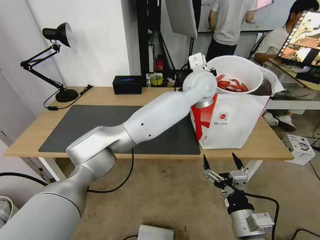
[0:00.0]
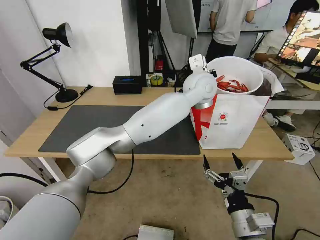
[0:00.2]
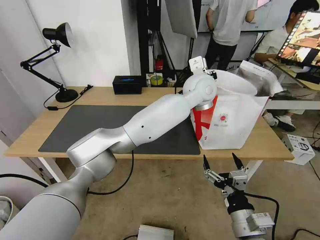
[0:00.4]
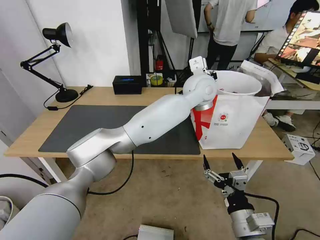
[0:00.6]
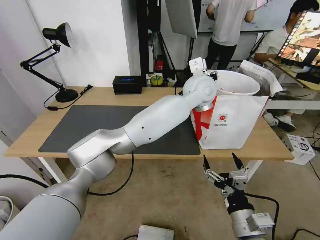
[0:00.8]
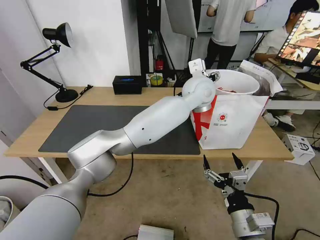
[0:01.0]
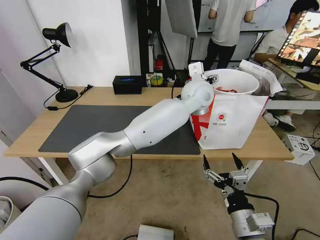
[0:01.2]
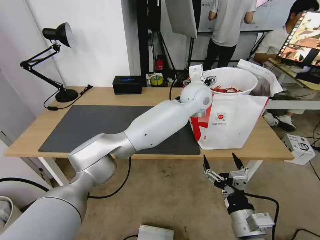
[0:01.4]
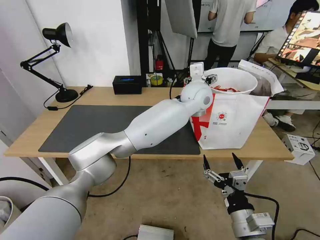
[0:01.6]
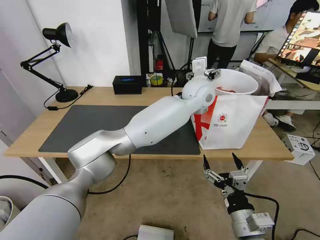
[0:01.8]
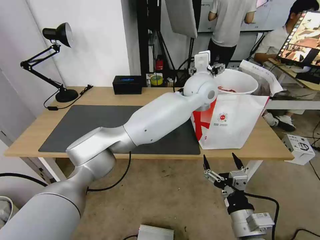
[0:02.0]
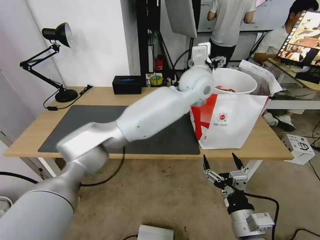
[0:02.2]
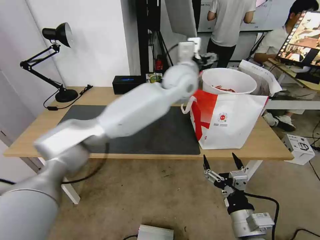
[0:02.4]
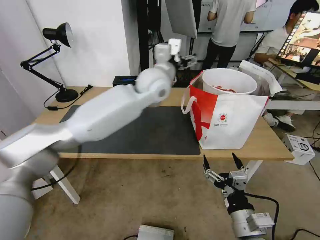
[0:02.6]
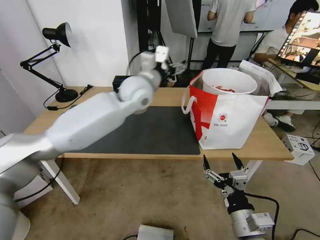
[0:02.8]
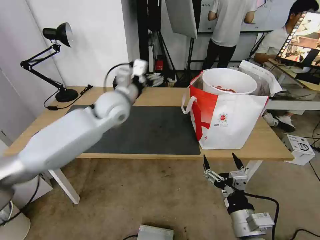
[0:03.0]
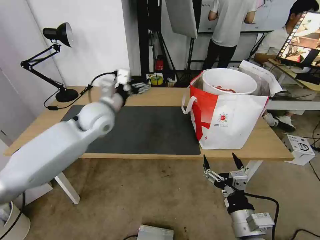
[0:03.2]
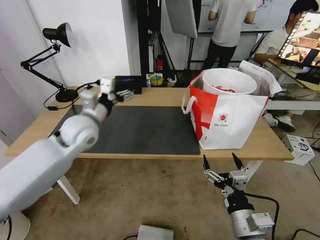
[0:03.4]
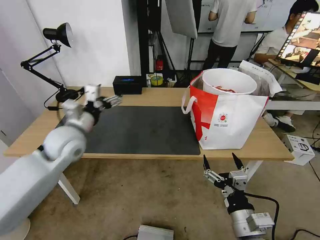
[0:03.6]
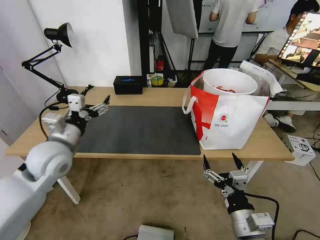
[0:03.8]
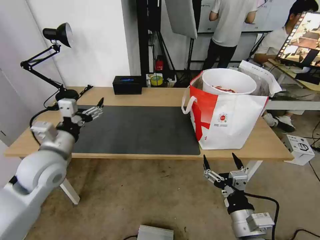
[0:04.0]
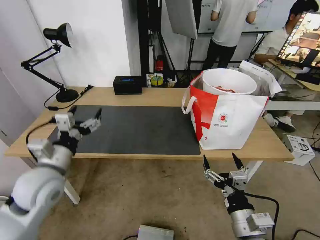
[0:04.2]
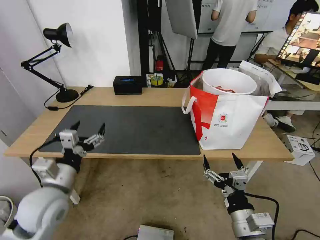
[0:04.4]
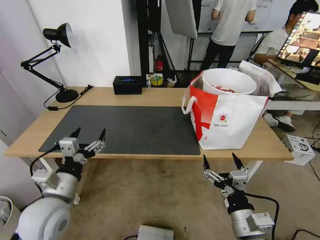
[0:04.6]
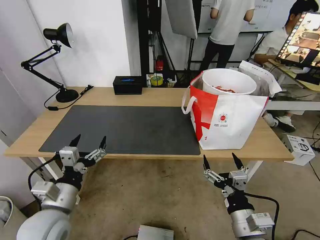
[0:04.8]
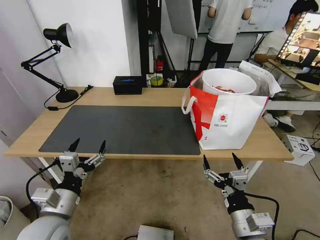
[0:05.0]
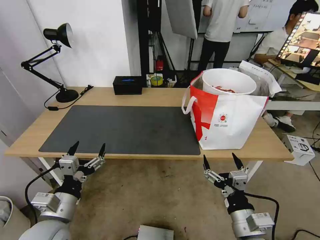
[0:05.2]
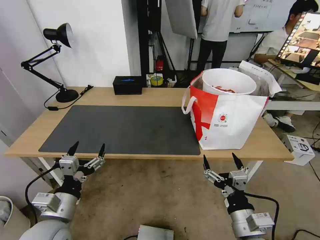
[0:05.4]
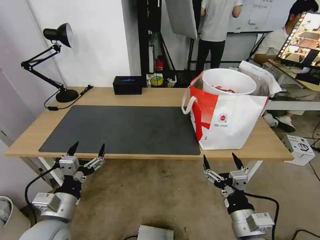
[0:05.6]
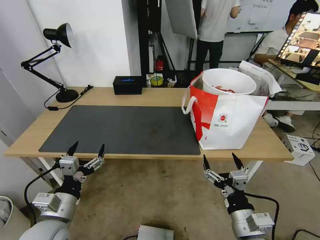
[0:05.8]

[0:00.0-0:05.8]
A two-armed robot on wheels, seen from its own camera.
Task of the whole recording: Pick up the trash from the table and place it into the takeout bag.
0:00.0 to 0:01.4: The left gripper opens up.
0:01.4 to 0:02.8: The left gripper goes approximately 20 cm to the left.
0:02.8 to 0:04.4: The left gripper heads backward, to the left and downward, covering about 35 cm.
0:04.4 to 0:05.8: The left gripper shifts some 5 cm backward.

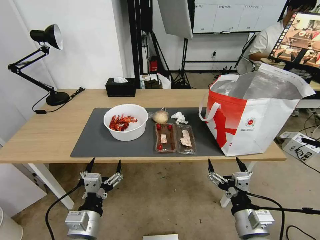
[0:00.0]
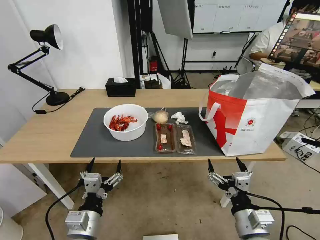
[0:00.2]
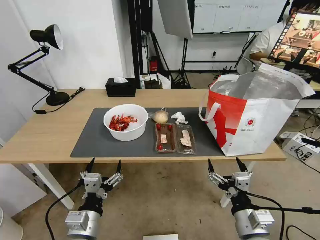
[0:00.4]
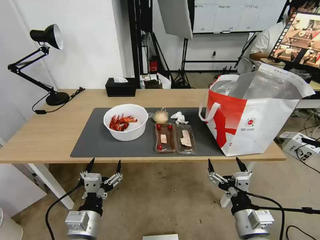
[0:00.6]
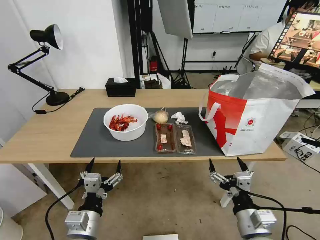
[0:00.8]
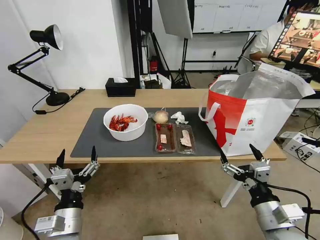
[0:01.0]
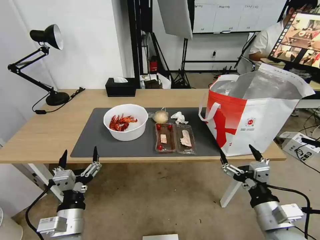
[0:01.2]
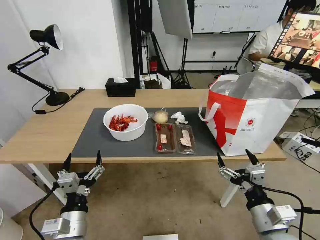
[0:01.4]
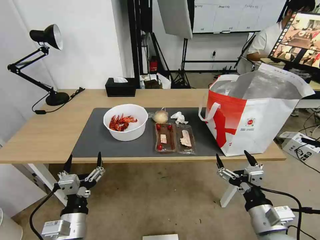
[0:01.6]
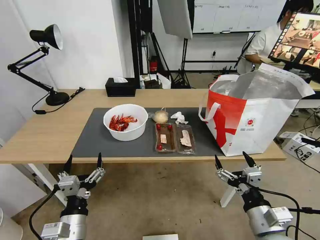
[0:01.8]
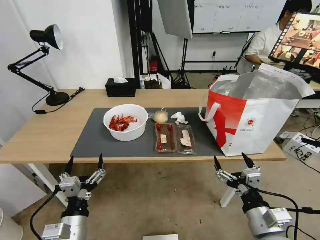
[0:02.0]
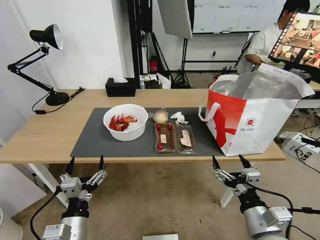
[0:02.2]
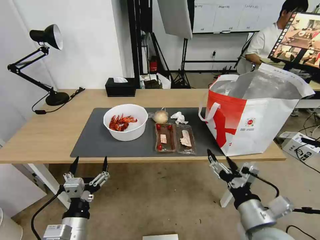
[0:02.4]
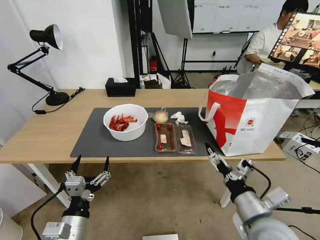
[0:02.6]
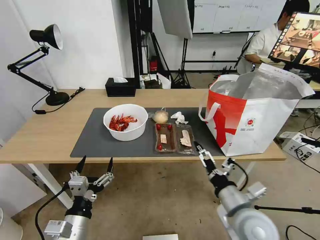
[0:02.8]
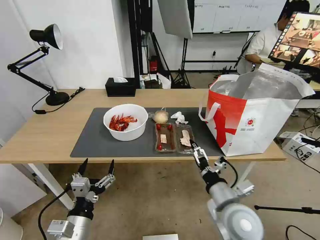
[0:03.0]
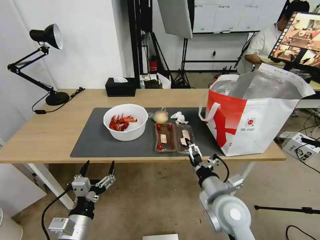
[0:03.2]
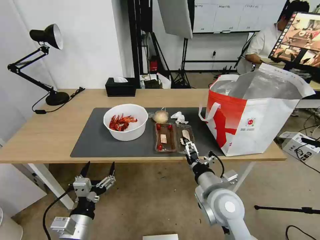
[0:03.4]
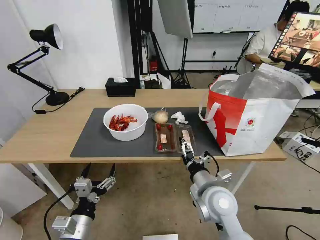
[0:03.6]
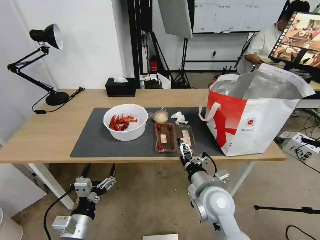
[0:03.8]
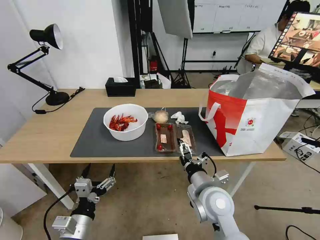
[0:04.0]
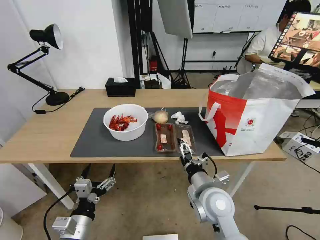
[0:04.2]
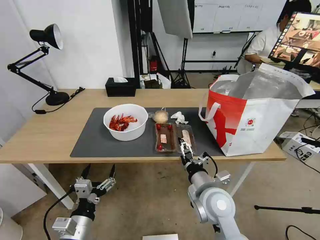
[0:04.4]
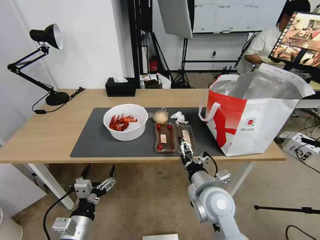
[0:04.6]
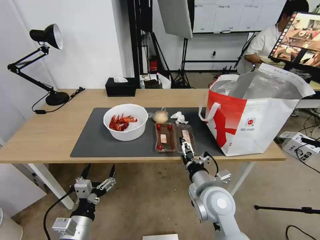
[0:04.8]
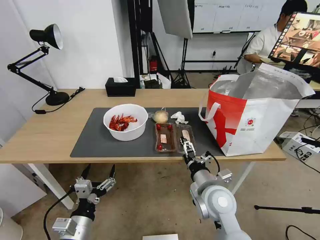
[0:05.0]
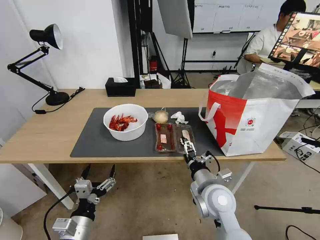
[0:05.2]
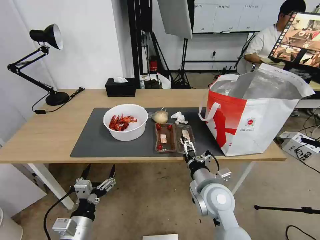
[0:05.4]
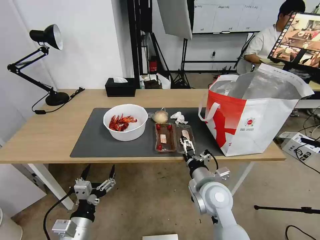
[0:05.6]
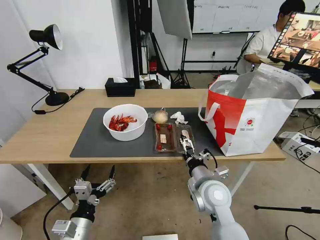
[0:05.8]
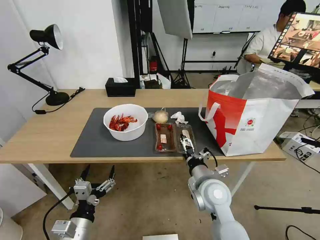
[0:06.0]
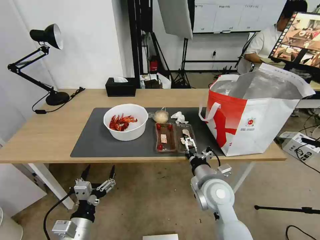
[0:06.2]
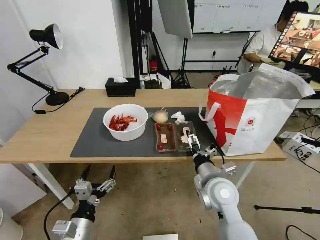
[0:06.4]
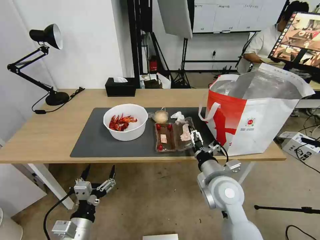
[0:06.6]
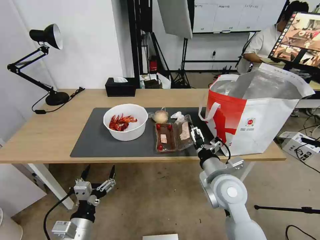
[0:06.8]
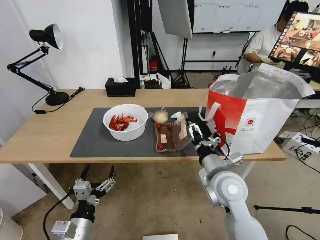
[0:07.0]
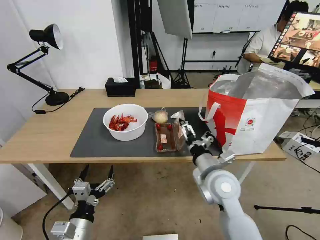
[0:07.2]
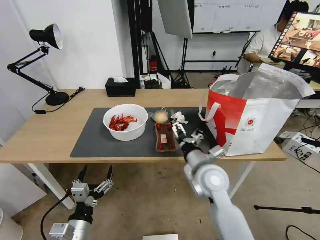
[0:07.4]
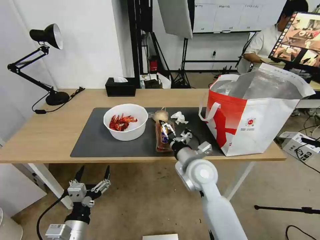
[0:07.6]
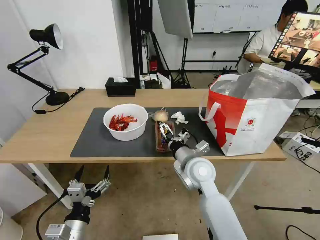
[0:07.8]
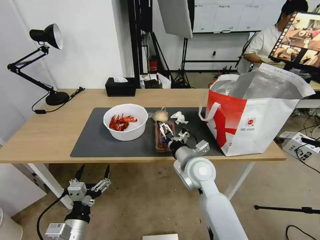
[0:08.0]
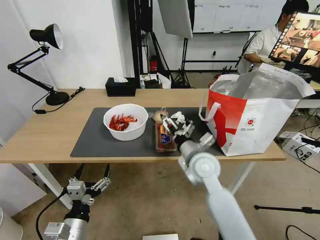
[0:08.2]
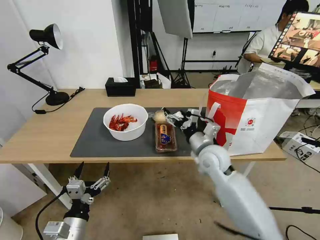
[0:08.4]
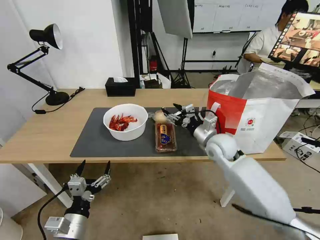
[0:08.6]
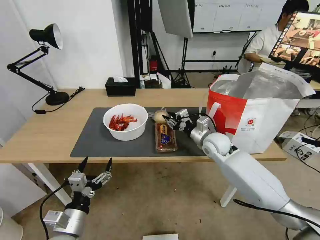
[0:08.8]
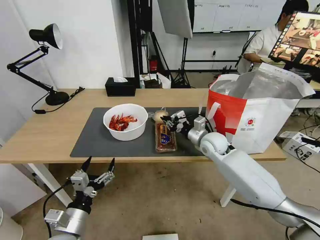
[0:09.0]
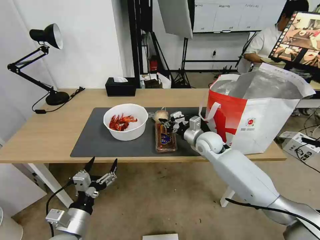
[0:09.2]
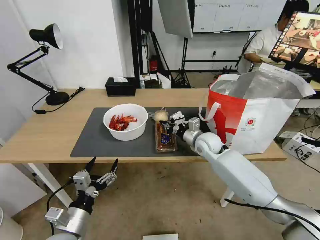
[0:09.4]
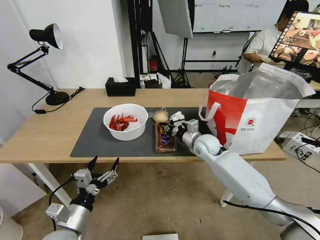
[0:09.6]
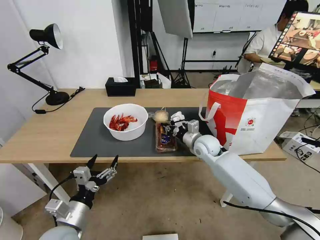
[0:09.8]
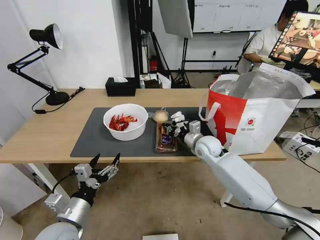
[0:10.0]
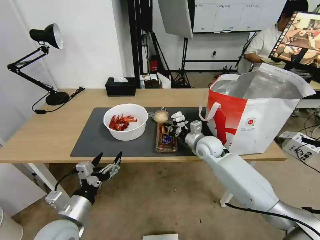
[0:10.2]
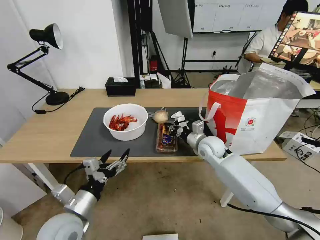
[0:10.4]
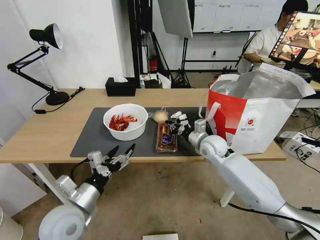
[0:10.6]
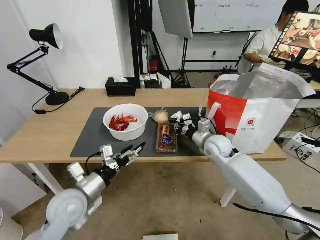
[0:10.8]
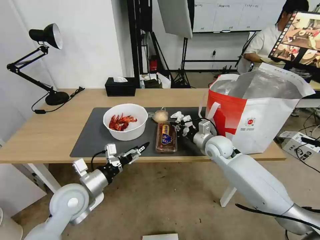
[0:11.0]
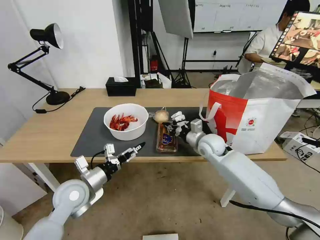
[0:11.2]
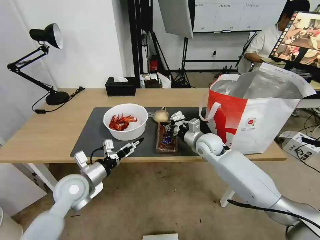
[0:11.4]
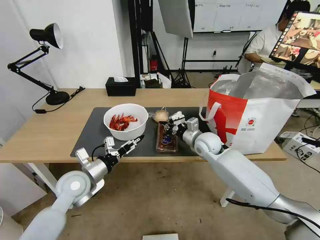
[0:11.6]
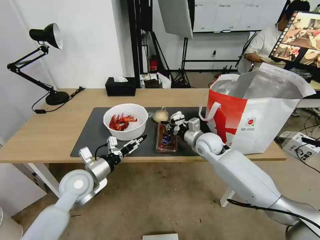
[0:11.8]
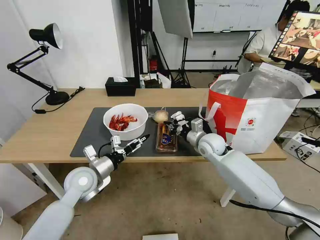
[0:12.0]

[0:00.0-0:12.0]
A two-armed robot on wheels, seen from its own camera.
Task of the whole recording: Pick up the trash from the table and place it into the takeout bag.
0:01.6 to 0:03.0: The right gripper heads to the left and forward, covering approximately 10 cm.
0:03.0 to 0:04.4: The right gripper ends up roughly 5 cm from where it was.
0:04.4 to 0:06.0: There are only small adjustments of the grippers.
0:06.0 to 0:07.6: The right gripper is displaced forward by approximately 5 cm.
0:07.6 to 0:09.0: The right gripper travels forward and to the right by approximately 15 cm, and closes its fingers.
0:09.0 to 0:10.4: The left gripper shifts by about 5 cm.
0:10.4 to 0:12.0: The left gripper moves forward, about 15 cm.

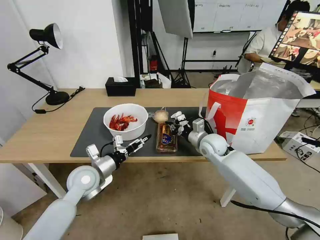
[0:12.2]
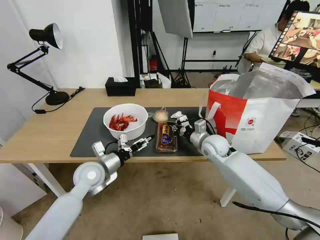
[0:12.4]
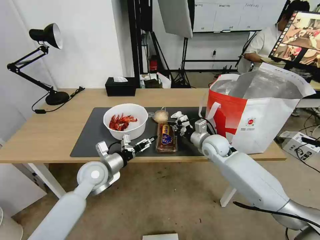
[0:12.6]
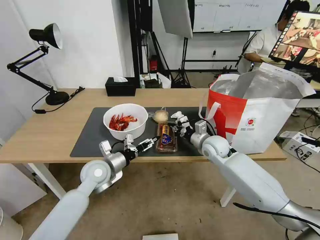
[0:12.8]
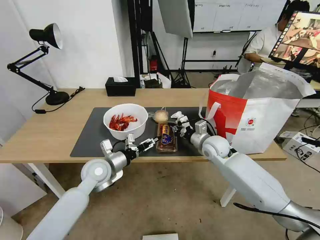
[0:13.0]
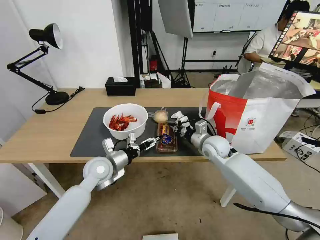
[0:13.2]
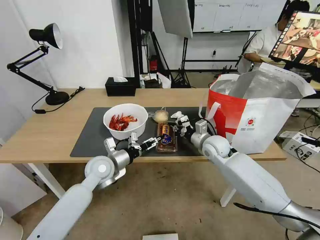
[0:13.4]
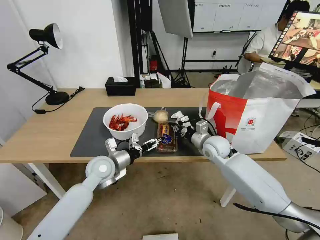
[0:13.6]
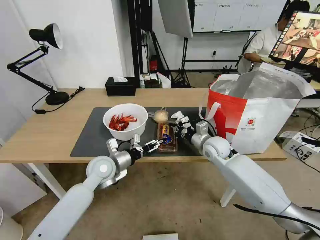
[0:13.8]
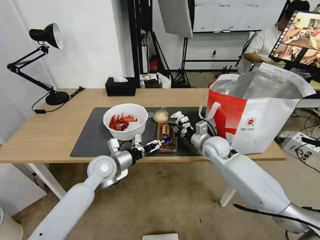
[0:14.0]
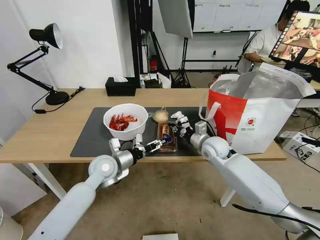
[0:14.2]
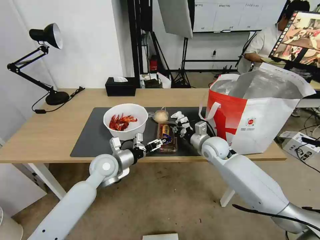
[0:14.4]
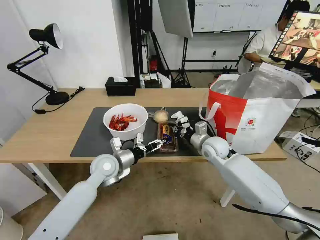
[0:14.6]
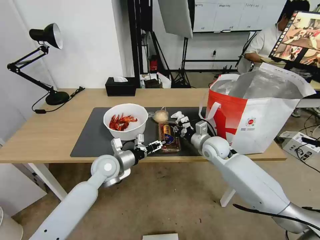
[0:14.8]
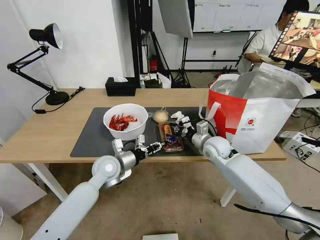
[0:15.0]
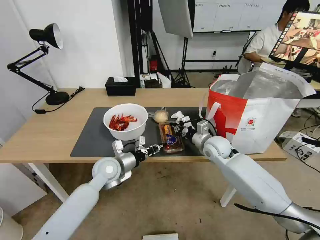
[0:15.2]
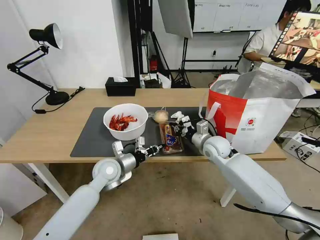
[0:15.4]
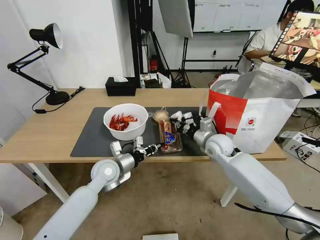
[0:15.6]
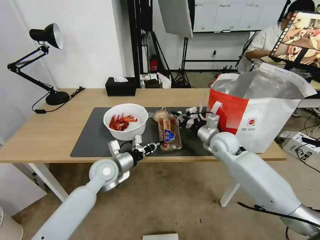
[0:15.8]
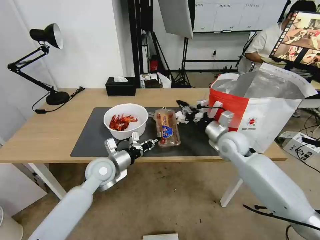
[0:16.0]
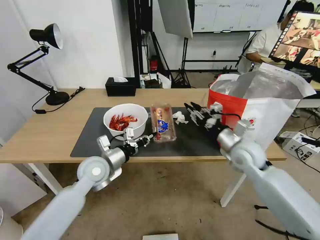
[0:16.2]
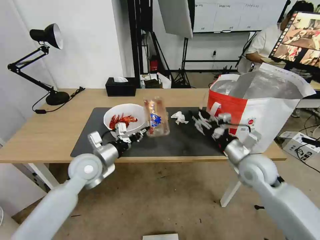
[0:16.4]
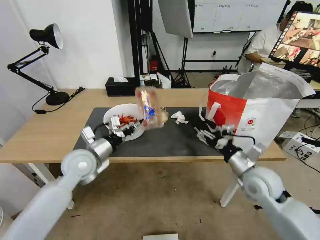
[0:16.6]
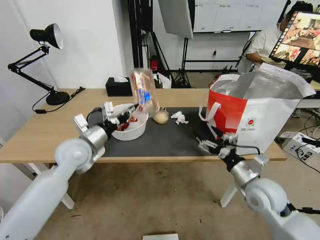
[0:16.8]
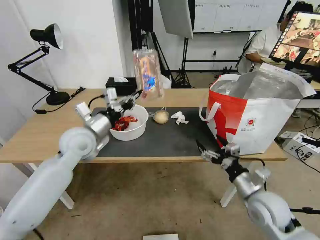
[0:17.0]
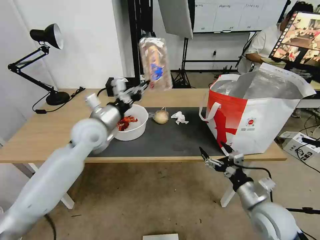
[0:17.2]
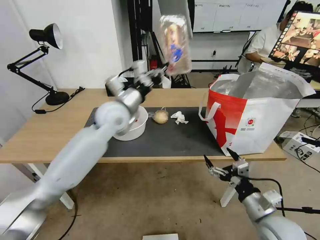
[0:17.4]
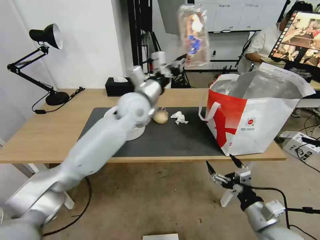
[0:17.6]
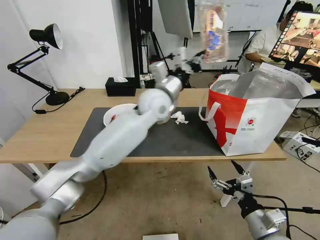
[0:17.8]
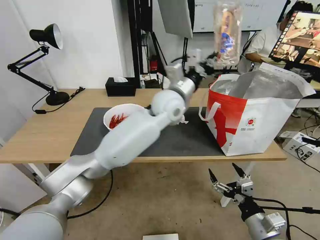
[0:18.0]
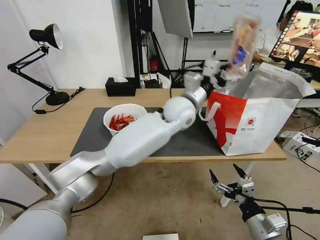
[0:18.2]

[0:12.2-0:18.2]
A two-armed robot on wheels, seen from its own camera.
Task of the whole recording: Pick up the trash from the table and place it into the takeout bag.
0:12.2 to 0:13.8: The left gripper shifts by some 5 cm.
0:13.8 to 0:15.2: The left gripper closes.
0:15.2 to 0:16.6: The right gripper moves backward and to the right, about 15 cm, and opens, while the left gripper is displaced upward and to the left by roughly 10 cm.
0:16.6 to 0:18.2: The right gripper travels backward and downward by roughly 20 cm. Meanwhile the left gripper travels to the right and forward by about 30 cm.
